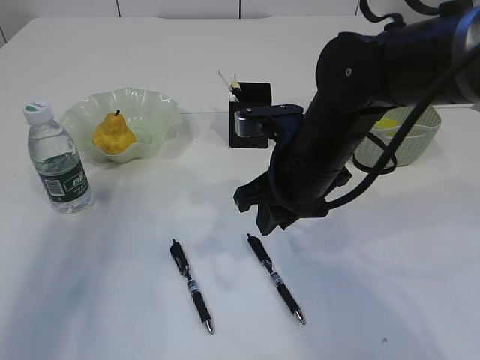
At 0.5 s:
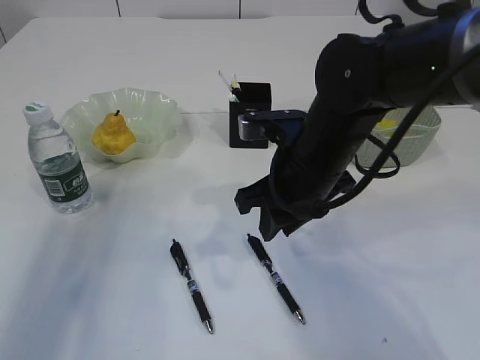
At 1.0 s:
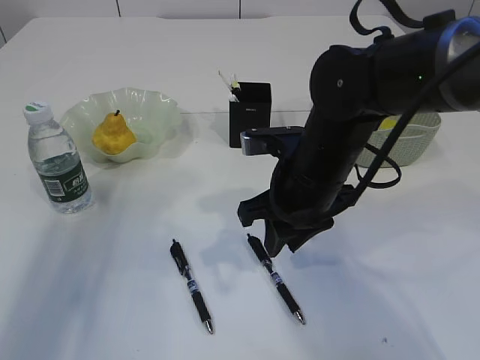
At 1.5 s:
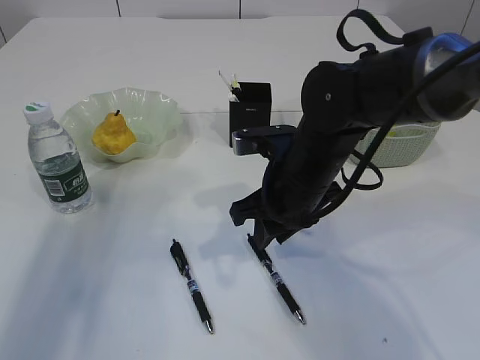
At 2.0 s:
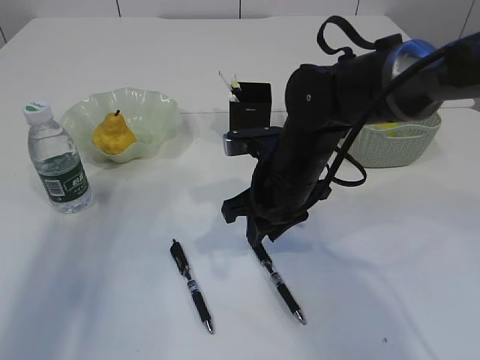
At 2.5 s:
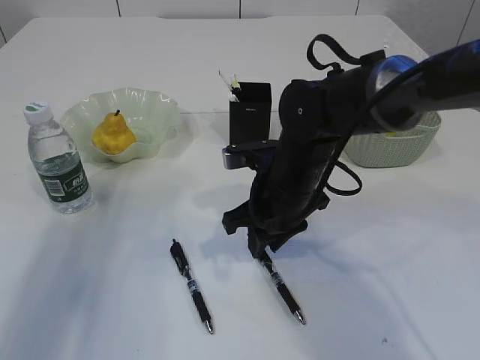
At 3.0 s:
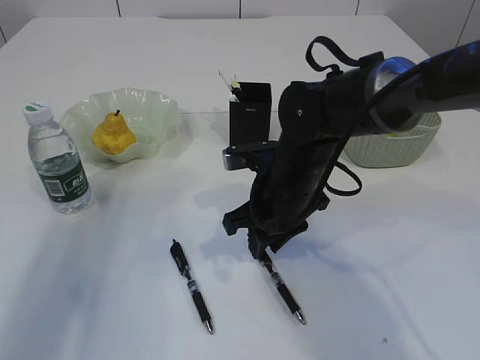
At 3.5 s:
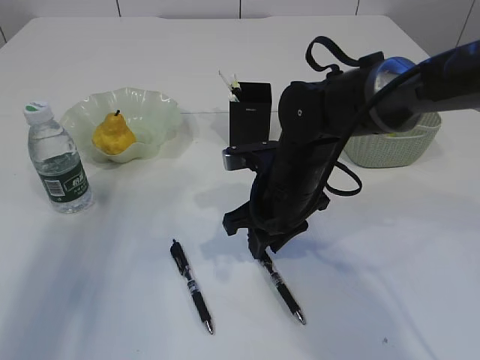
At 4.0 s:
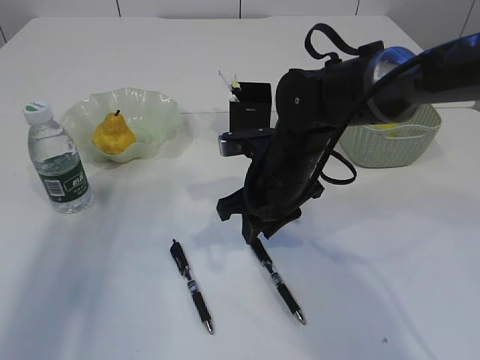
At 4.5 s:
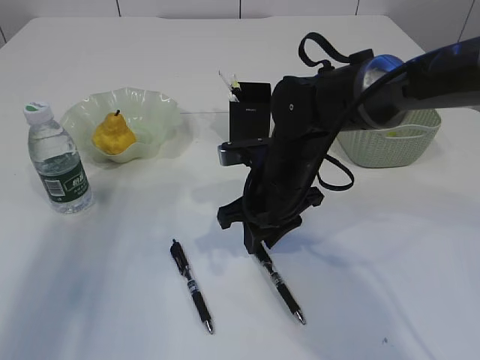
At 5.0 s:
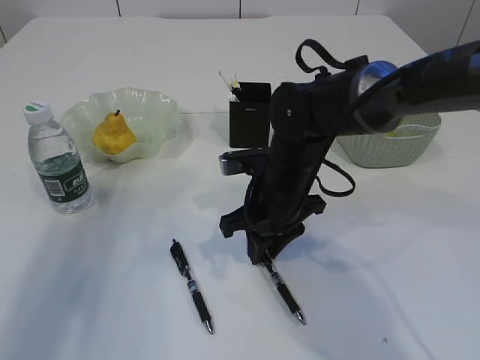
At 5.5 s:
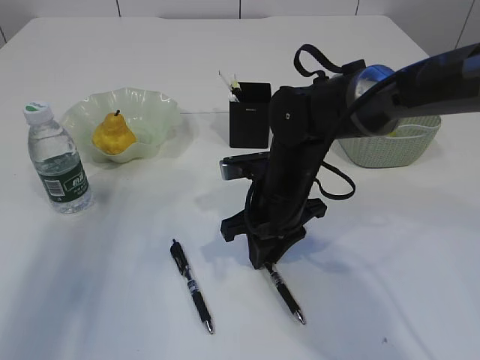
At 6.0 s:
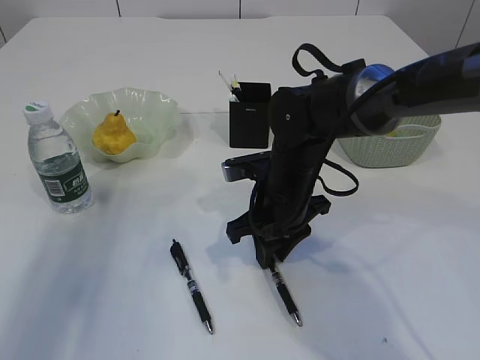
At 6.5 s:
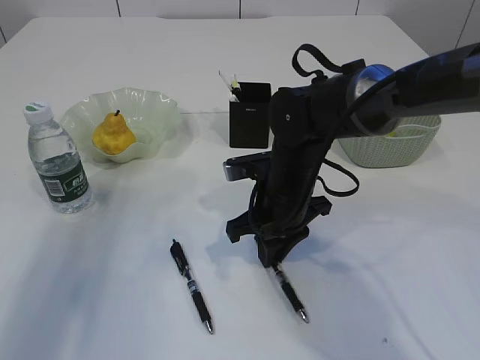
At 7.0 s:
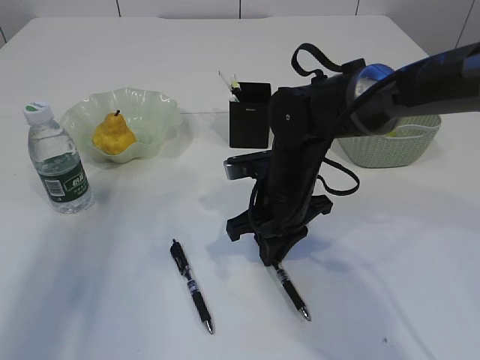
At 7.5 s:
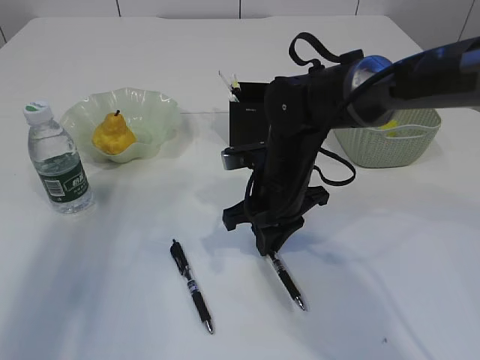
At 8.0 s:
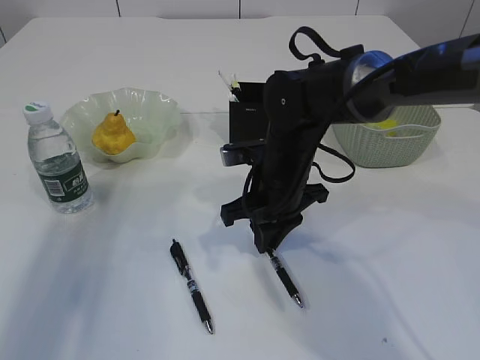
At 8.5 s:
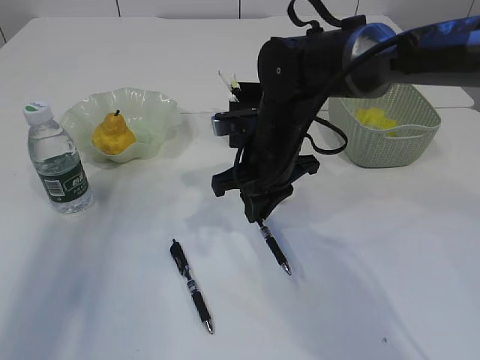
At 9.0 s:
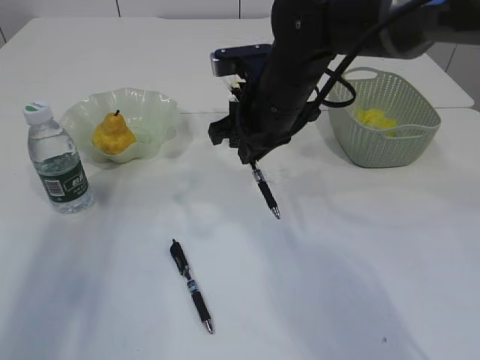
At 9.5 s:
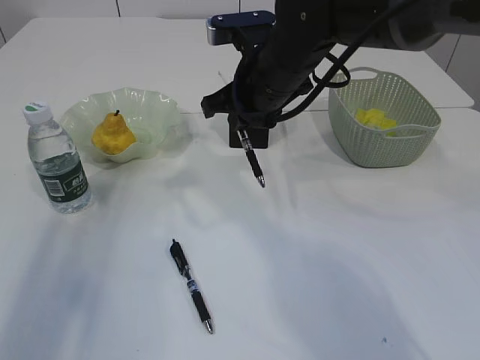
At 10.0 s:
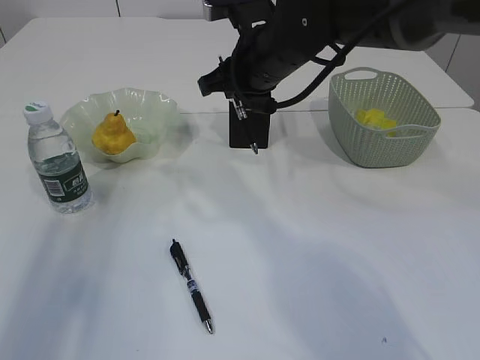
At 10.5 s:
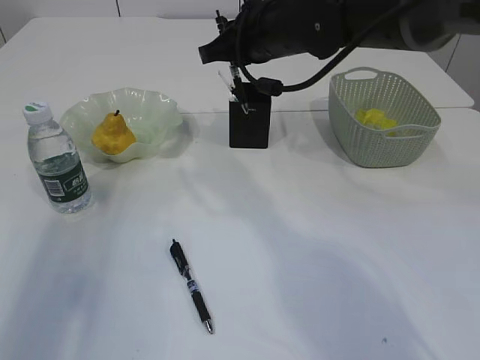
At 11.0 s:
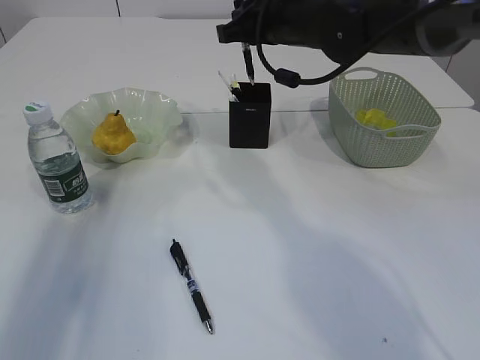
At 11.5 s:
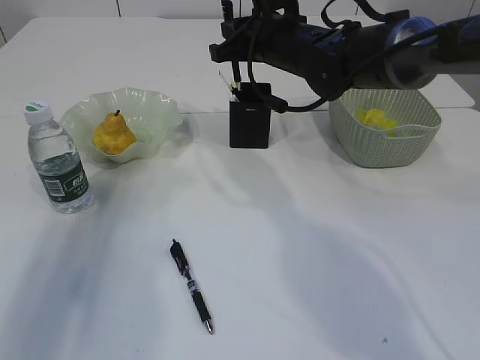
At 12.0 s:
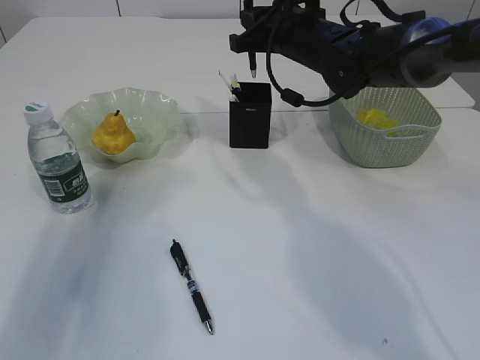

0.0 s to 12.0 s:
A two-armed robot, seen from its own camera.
Step, 0.0 to 8.5 s: Pick up the pen with right arm.
0.0 to 2.0 s: The grippers stay close to where they were, moving slightly.
2.0 to 8.0 s: The grippers stay close to where they were, moving slightly.
8.0 to 10.0 s: The right gripper shifts approximately 15 cm upward and forward.
10.0 to 12.0 s: The right gripper shifts about 5 cm forward.

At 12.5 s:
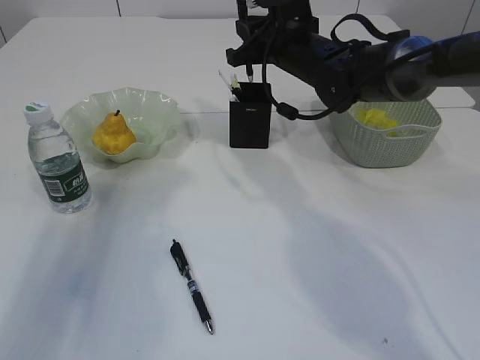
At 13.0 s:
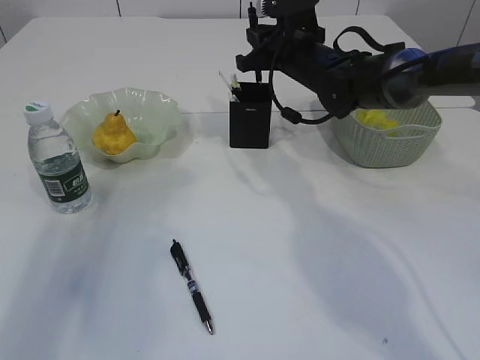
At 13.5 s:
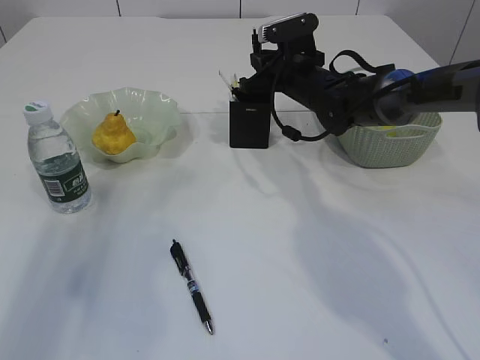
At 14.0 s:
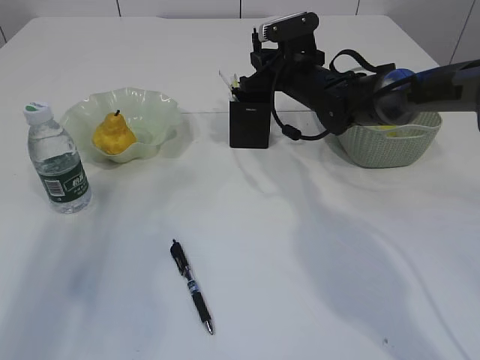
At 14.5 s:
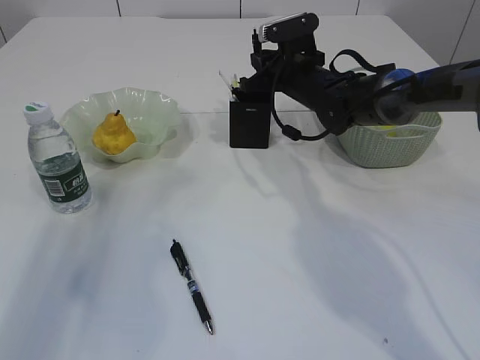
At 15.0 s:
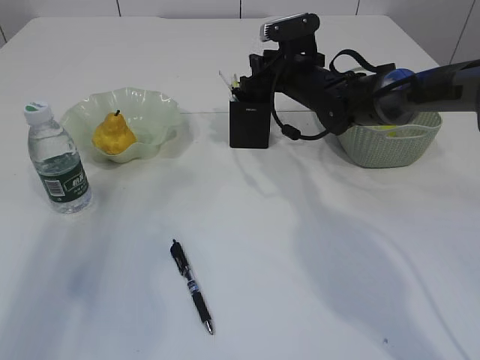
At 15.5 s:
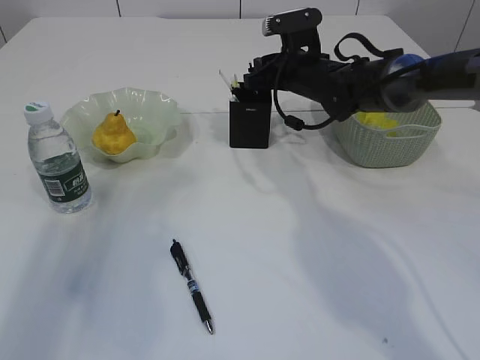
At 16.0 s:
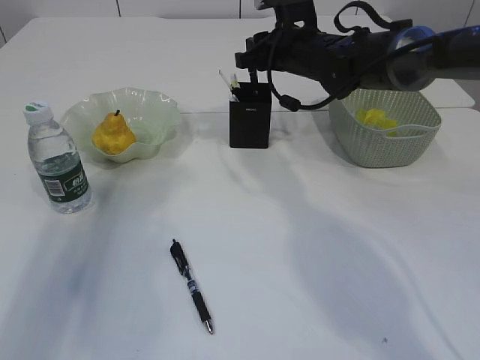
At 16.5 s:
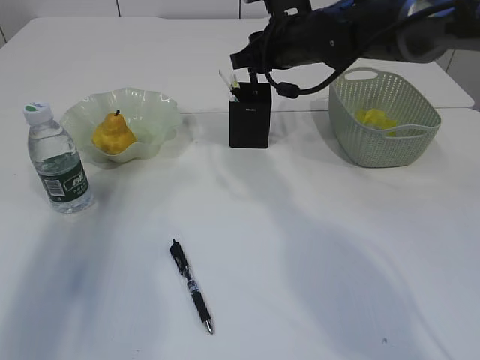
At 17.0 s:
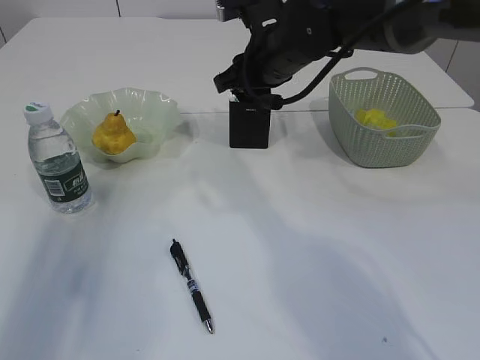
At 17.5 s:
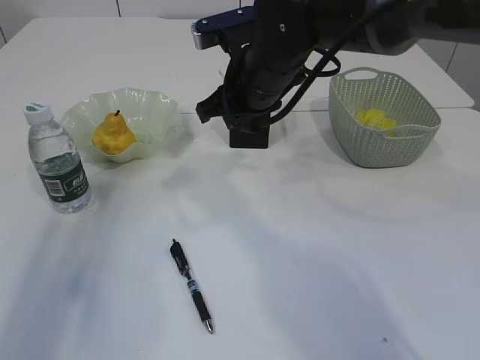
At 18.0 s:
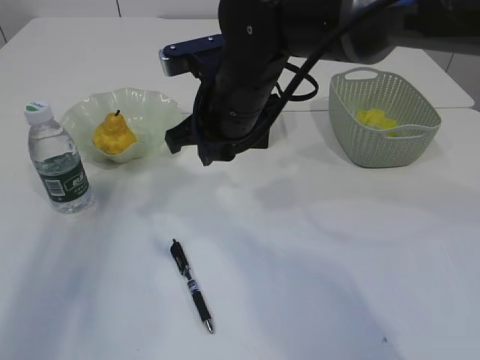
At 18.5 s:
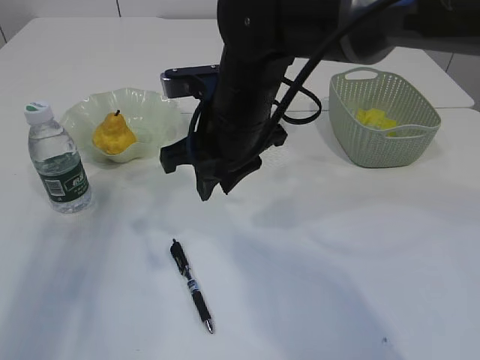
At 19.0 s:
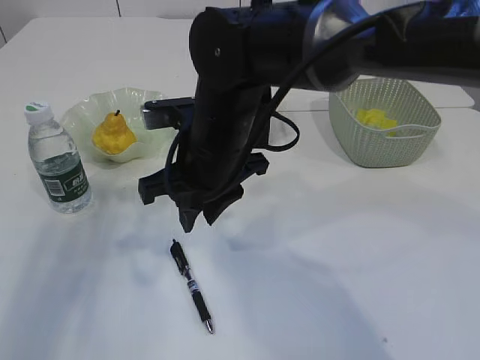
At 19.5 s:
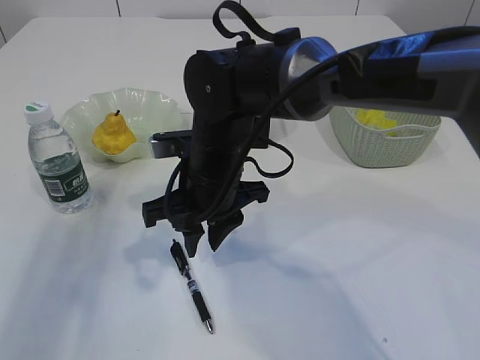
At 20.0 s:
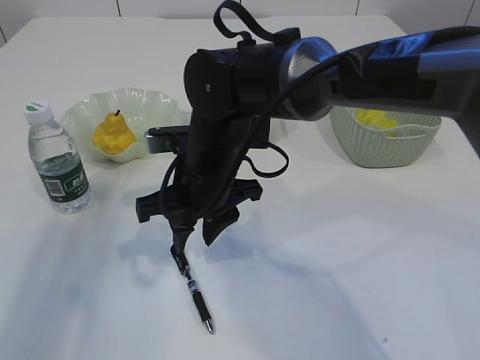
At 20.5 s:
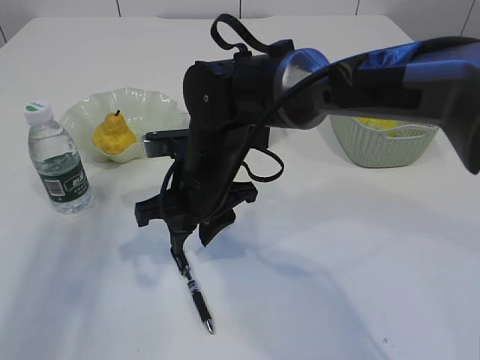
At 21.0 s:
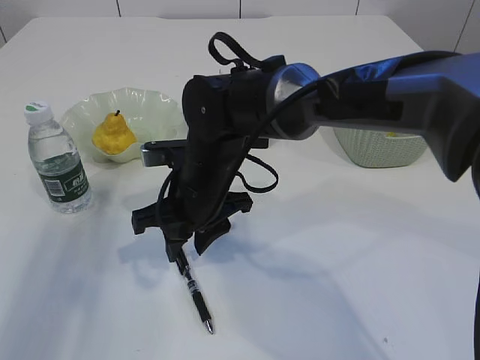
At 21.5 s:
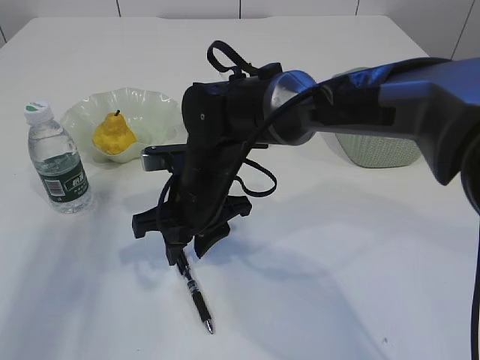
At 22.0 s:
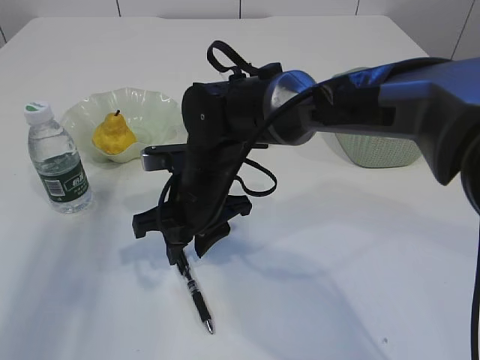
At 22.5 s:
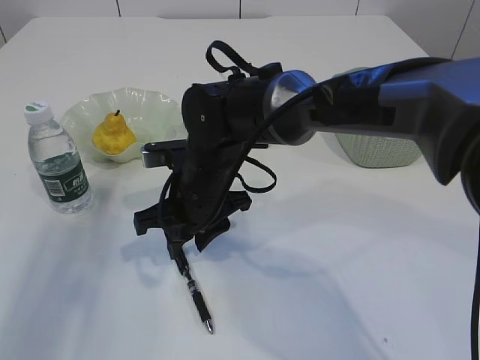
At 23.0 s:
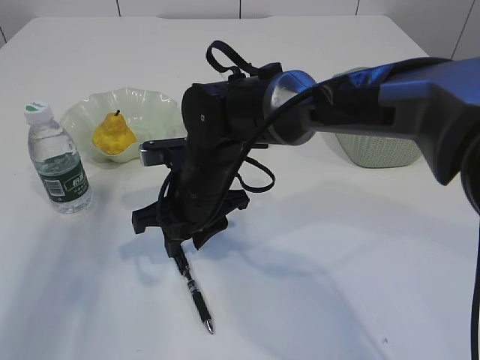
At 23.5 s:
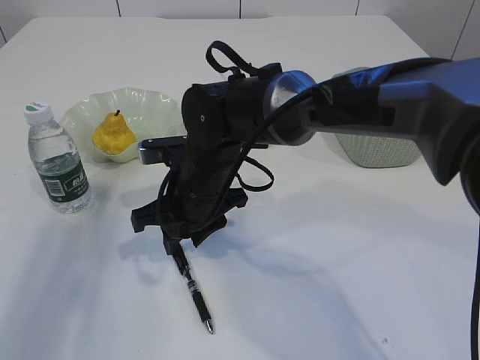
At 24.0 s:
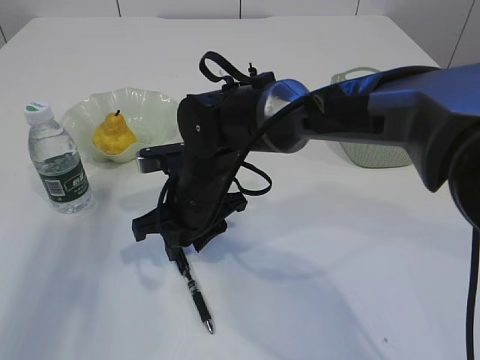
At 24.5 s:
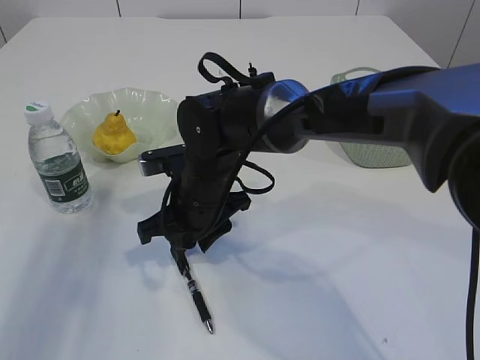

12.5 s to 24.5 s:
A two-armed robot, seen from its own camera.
Step, 12.5 to 16.0 s: Place the pen into the pen holder.
12.5 to 14.5 s: The right gripper shifts approximately 5 cm downward.
14.5 to 16.5 s: The right gripper heads upward, covering roughly 10 cm.
16.5 to 18.5 s: The right gripper goes roughly 15 cm backward and to the left.
18.5 to 20.5 s: The right gripper goes roughly 5 cm downward.
20.5 to 22.5 s: The grippers stay close to where they were, moving slightly.
22.5 to 24.5 s: The two grippers keep their place.

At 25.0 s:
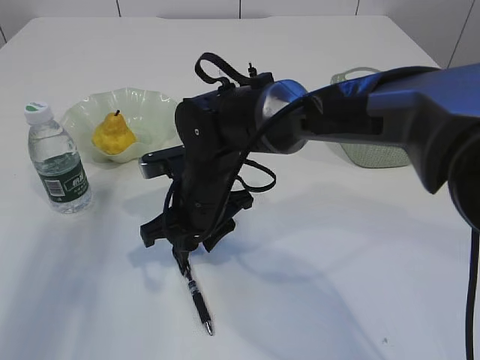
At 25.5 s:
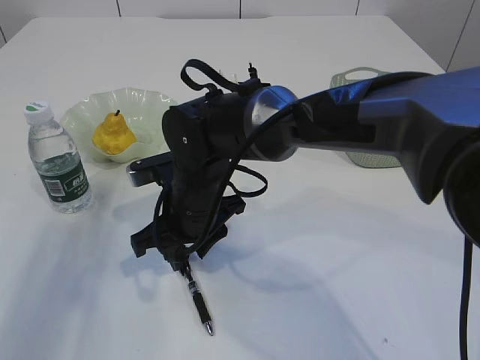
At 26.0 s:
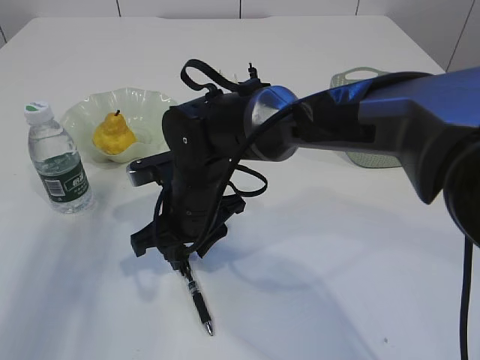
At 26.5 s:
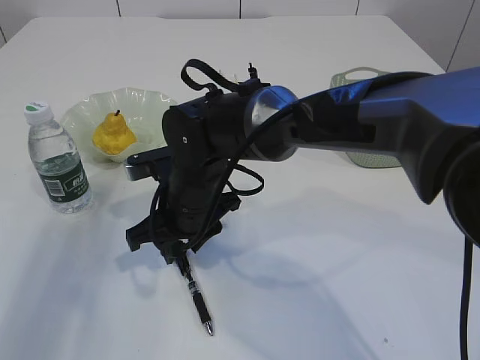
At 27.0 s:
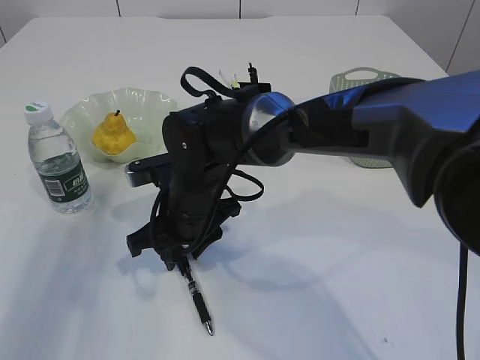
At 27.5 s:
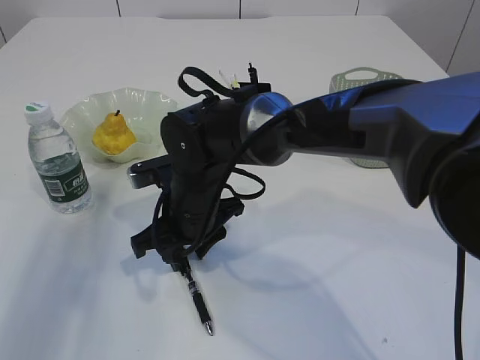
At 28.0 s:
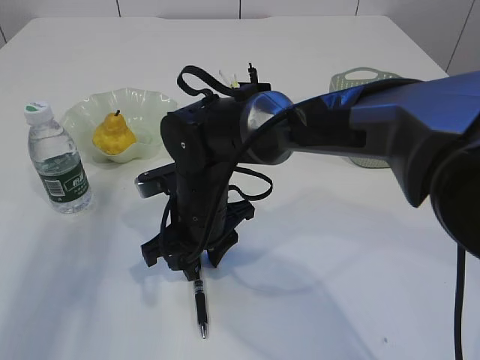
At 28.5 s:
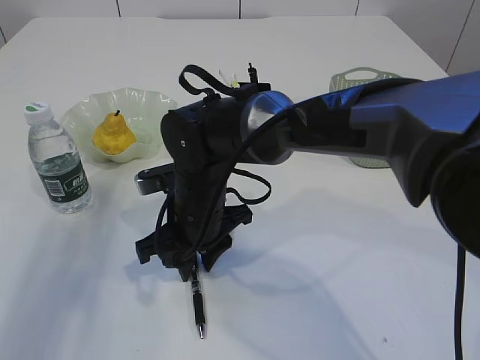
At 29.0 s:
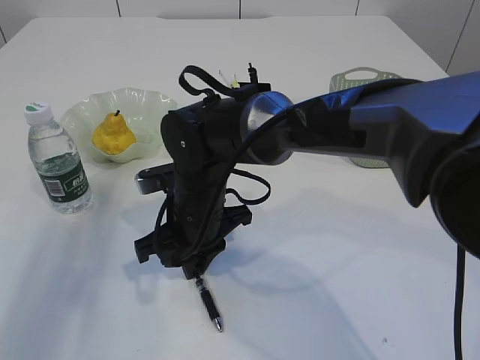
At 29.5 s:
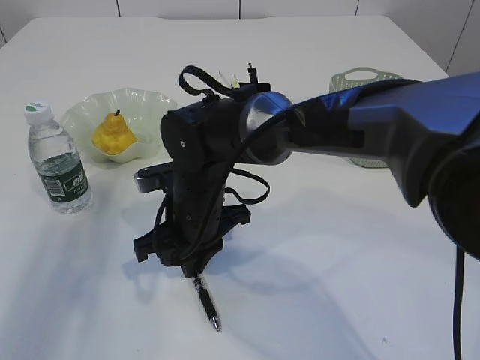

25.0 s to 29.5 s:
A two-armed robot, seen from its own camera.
25.0 to 27.0 s: The grippers move only a little.
27.0 to 29.5 s: The right gripper closes.
